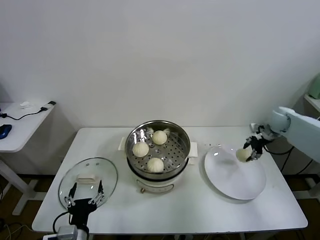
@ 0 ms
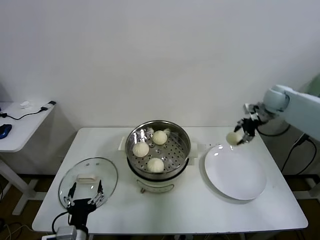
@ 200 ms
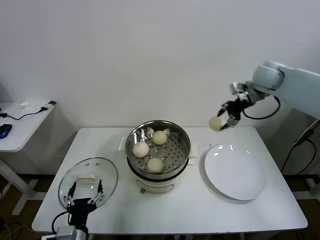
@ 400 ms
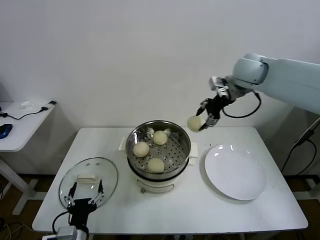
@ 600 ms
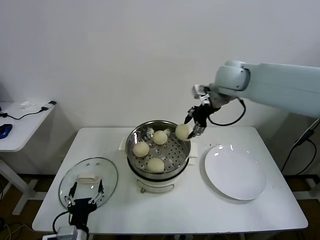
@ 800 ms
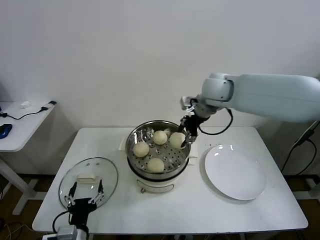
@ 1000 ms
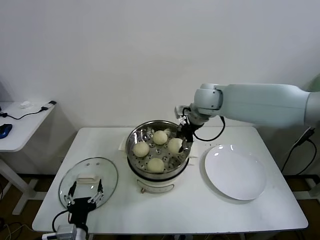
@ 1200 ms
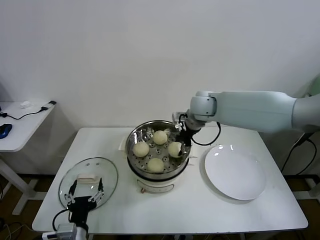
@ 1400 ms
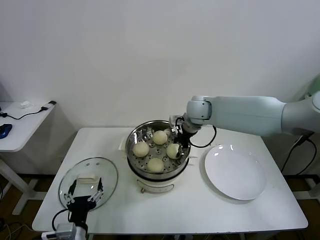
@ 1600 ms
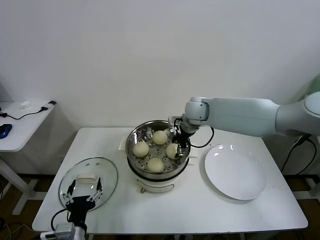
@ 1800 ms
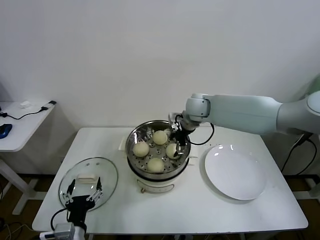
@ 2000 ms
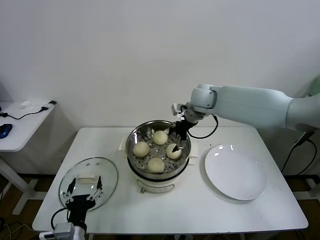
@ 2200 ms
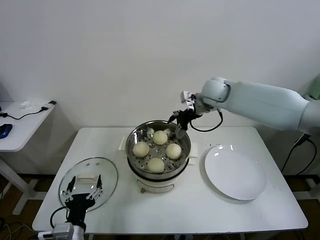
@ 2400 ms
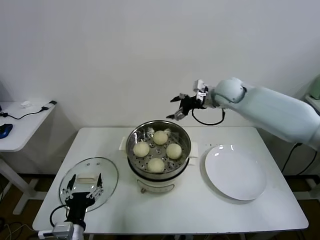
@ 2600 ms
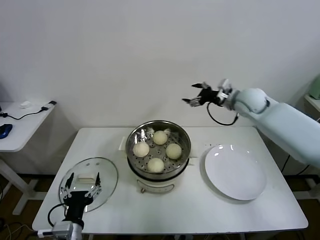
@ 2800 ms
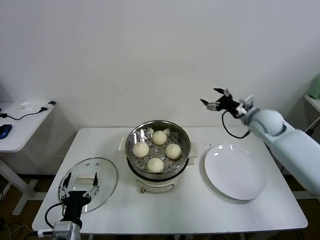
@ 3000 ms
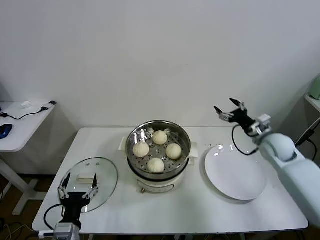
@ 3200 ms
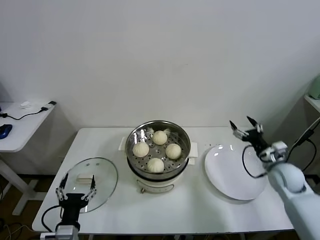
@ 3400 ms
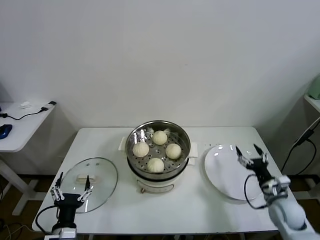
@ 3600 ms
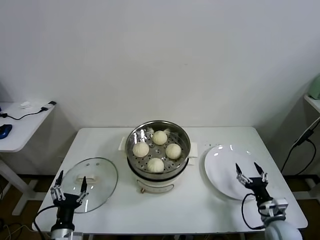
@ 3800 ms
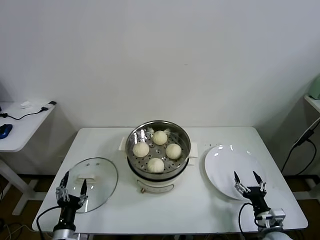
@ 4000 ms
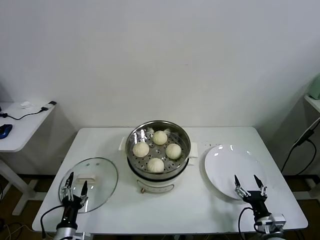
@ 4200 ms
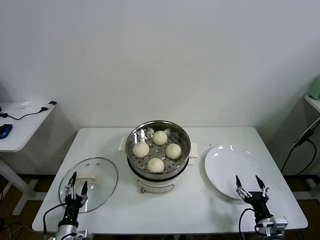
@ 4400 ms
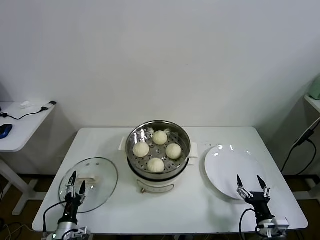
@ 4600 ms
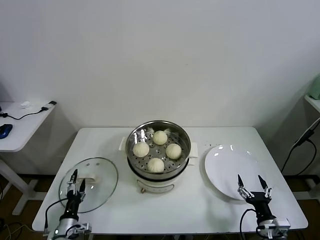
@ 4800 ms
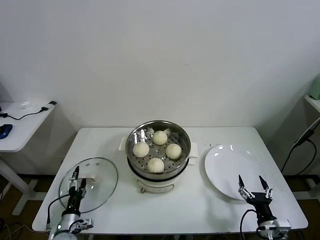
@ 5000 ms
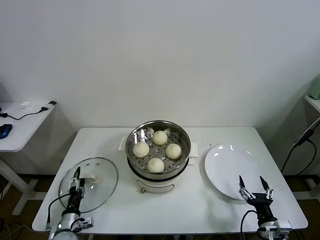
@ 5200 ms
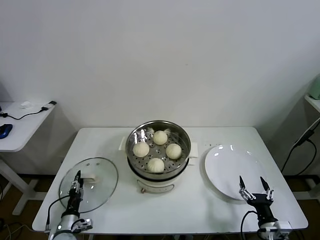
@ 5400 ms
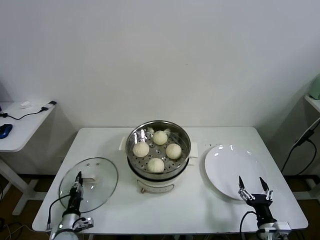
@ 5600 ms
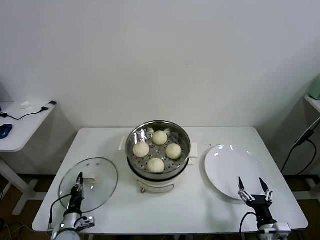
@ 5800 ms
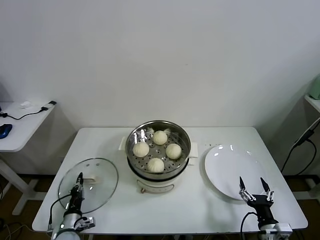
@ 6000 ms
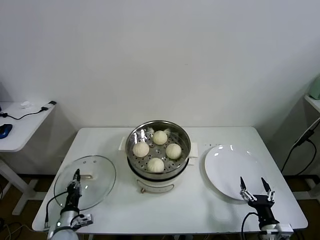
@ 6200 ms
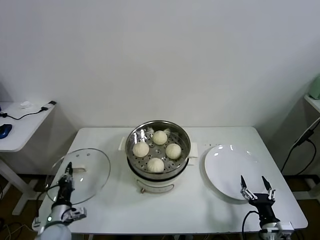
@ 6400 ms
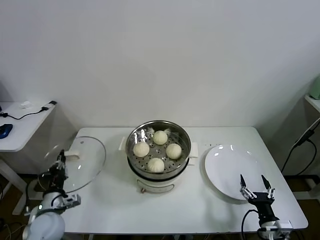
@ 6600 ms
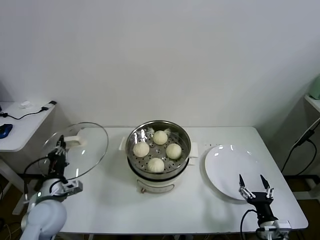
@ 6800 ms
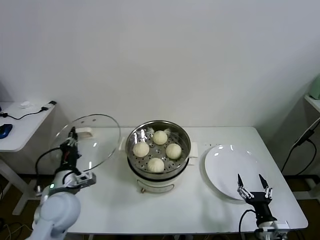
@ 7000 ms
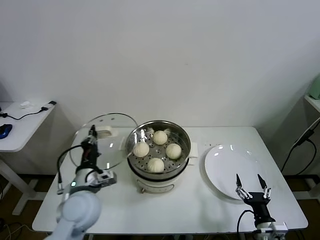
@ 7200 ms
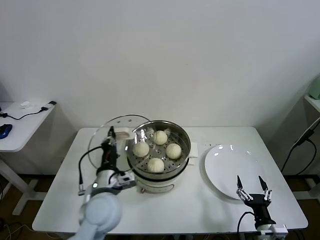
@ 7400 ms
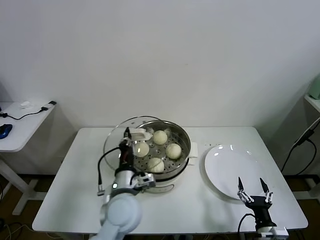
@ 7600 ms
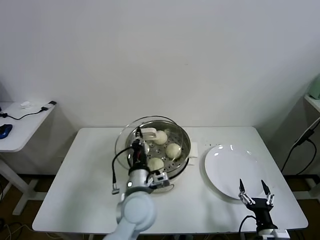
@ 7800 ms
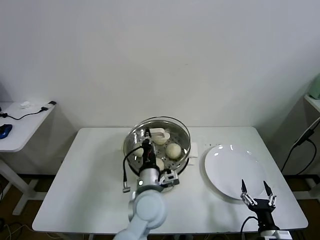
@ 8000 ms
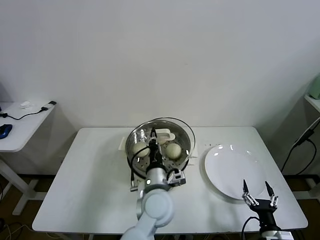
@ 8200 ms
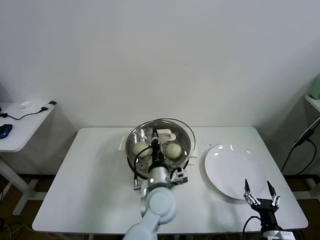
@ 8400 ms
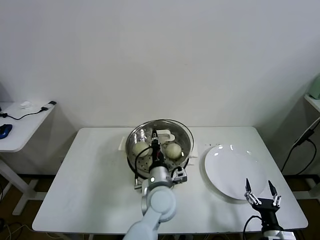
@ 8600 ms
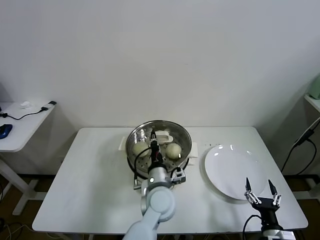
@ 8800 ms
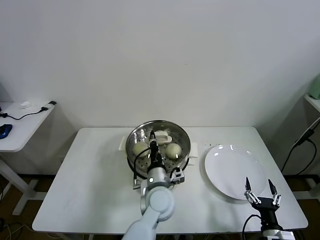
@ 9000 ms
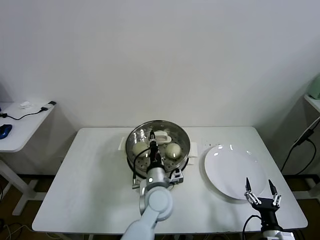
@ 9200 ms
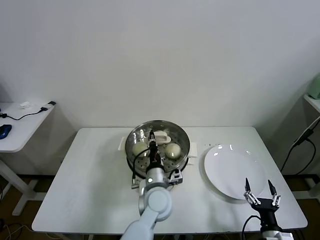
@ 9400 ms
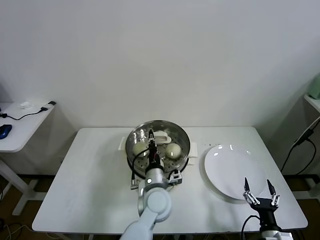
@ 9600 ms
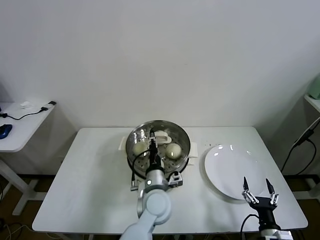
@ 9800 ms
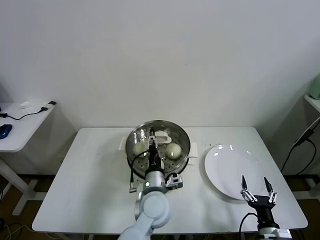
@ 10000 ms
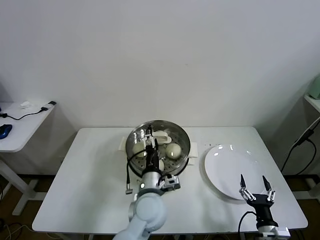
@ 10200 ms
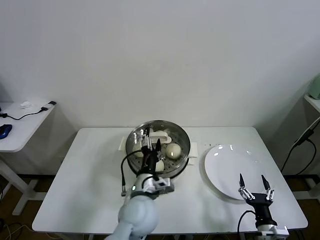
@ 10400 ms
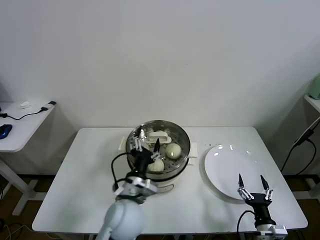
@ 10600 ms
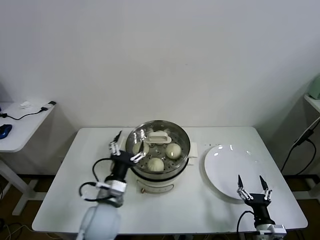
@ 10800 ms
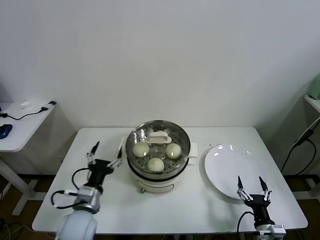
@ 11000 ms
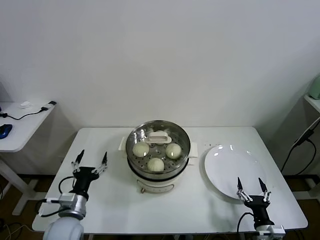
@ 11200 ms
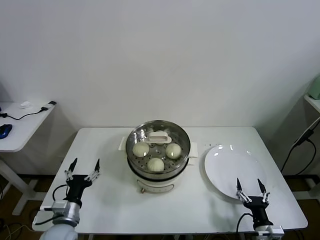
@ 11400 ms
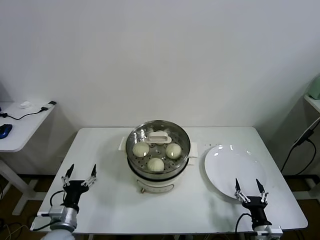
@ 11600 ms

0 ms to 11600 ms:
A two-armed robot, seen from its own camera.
Task of the whole recording: take steamed baozi put them in steamer.
Step, 0 ms to 2000 ms: Place the baozi on the steamer with right gripper.
Step, 2200 ms to 6000 ms: Grasp the pot lid with left gripper.
Step, 6200 ms to 10000 ms: Place the pot lid on the steamer with left gripper.
0 ms to 1400 ms: The right gripper heads to the left, covering roughly 30 cm.
1400 ms to 2800 ms: The right gripper moves to the right, approximately 15 cm, and opens its fingers.
2800 ms to 4400 ms: The right gripper is displaced backward and downward by roughly 50 cm, while the left gripper is displaced downward and to the left by about 15 cm.
4400 ms to 5800 ms: The left gripper shifts about 5 cm forward, and closes up.
5800 ms to 7200 ms: The left gripper shifts about 30 cm upward and to the right.
7200 ms to 8800 ms: The left gripper heads to the right, covering about 25 cm.
8800 ms to 10200 ms: The left gripper opens its fingers.
10200 ms to 11600 ms: The left gripper moves to the left, roughly 30 cm.
